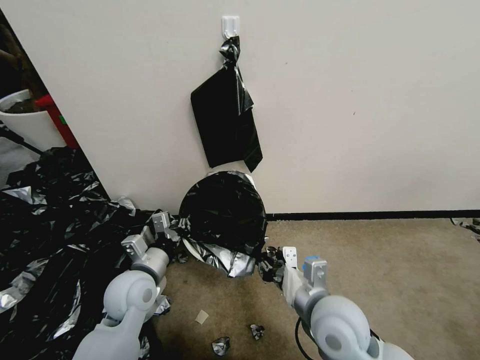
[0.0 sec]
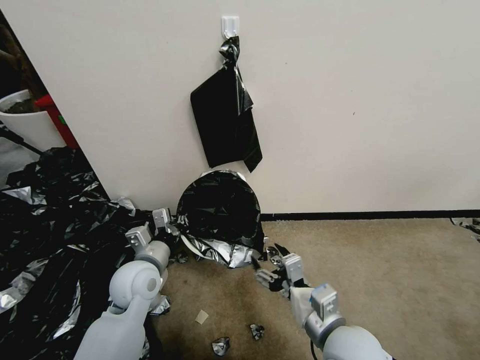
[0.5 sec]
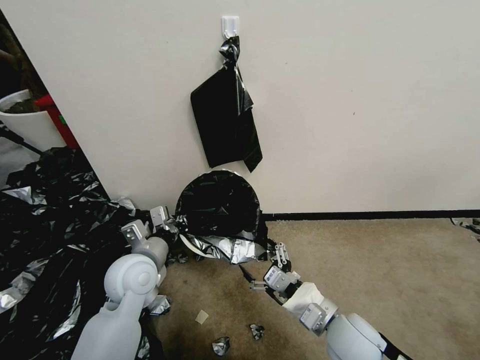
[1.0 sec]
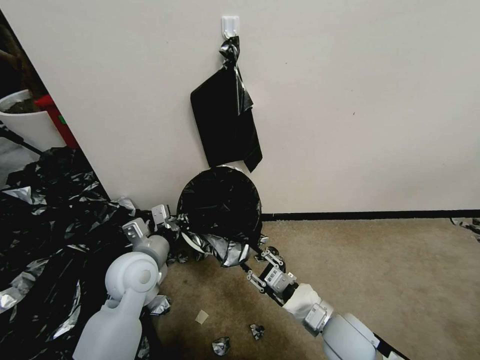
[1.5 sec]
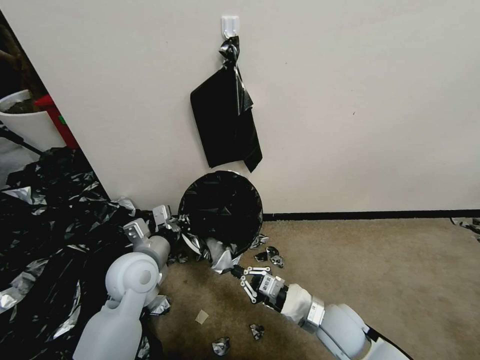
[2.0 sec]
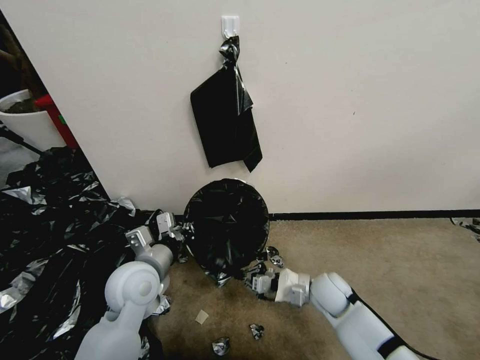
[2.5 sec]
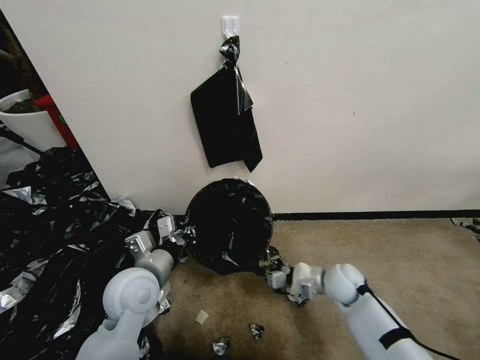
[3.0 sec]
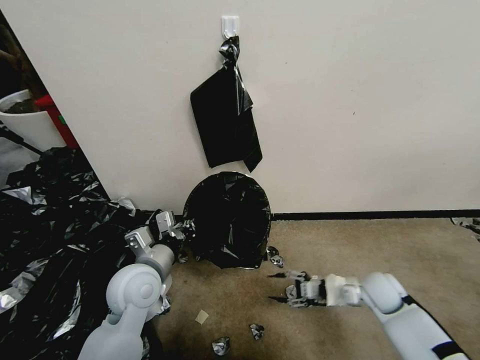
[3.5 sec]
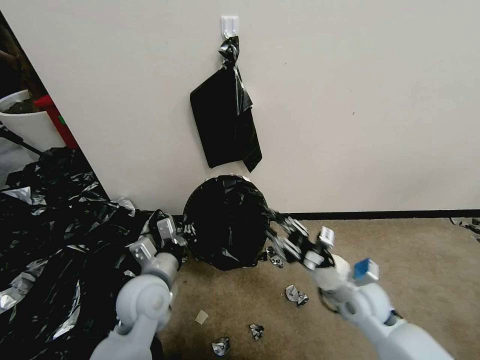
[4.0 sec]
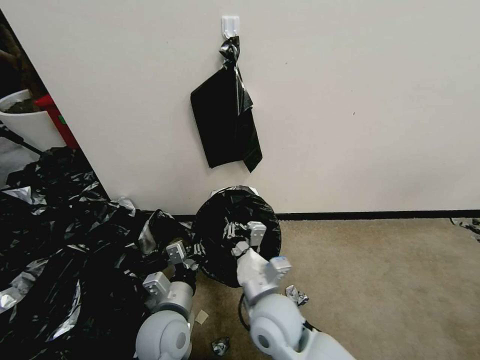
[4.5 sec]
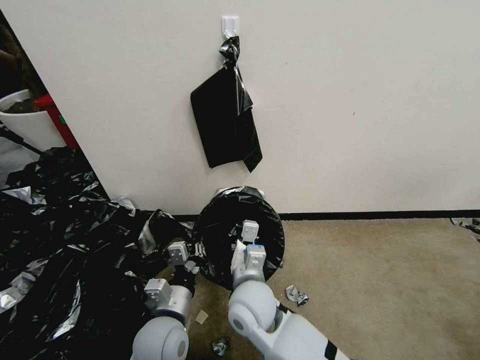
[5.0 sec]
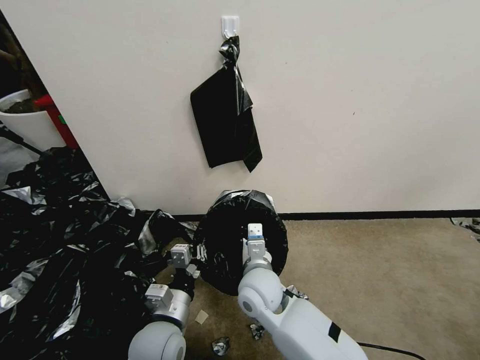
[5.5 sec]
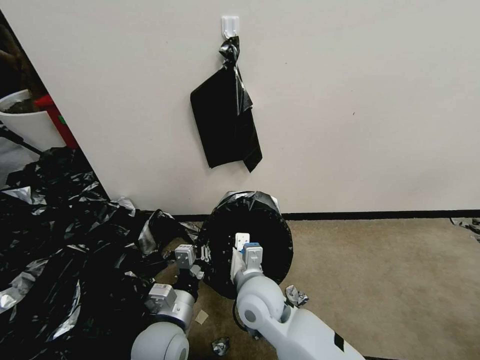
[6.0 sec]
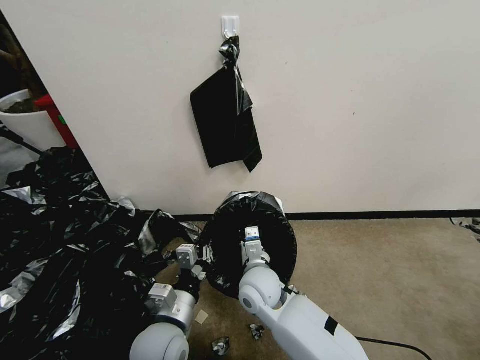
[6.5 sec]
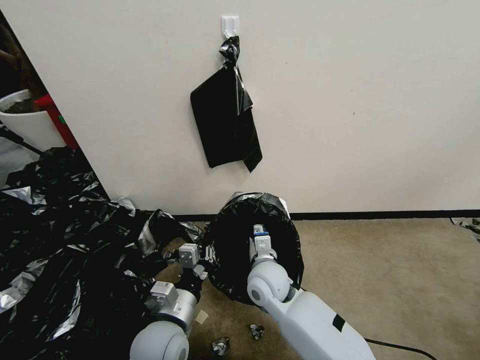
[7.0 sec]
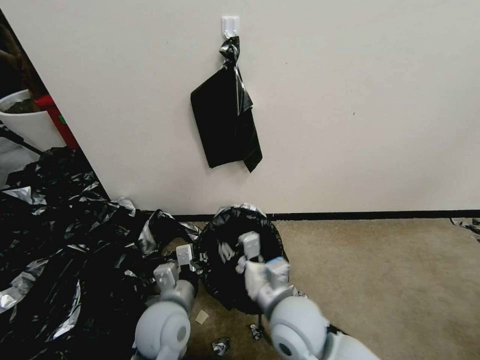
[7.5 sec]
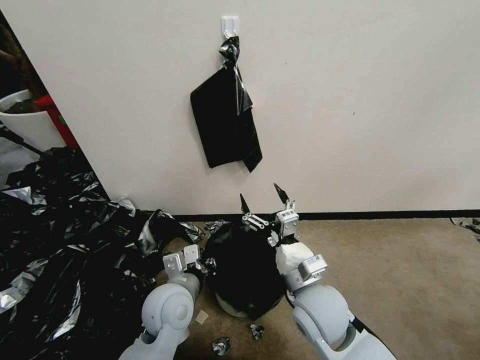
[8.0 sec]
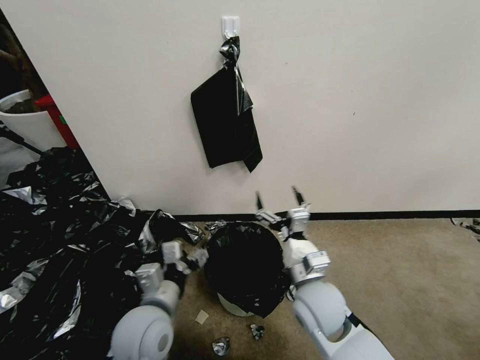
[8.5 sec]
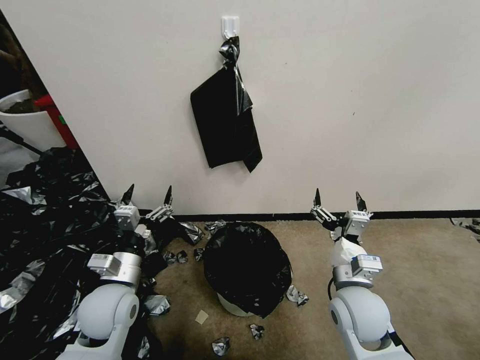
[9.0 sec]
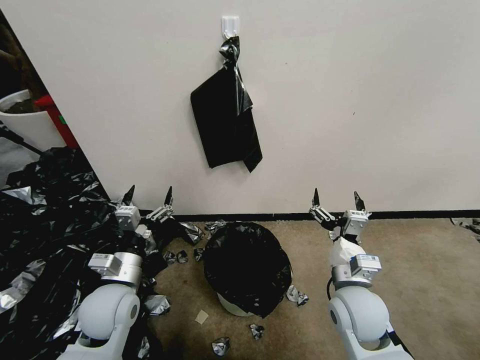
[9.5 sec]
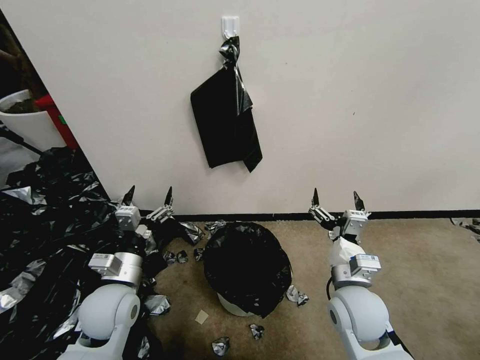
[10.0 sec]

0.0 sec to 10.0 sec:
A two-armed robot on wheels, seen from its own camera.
Task of the whole recording: Place a trash bag onto the trash bin.
0.0 sec to 2.0 sec: The right gripper is displaced downward by approximately 10 cm, and opens and closes again.
2.0 sec to 4.0 sec: The right gripper travels to the right by some 5 cm, and opens its fingers.
4.0 sec to 6.0 sec: The right gripper moves to the left, about 25 cm, and closes; the left gripper is displaced backward and downward by about 10 cm.
6.0 sec to 8.0 sec: The right gripper moves to the right, approximately 10 cm, and opens its fingers; the left gripper is displaced forward by about 5 cm.
8.0 sec to 10.0 sec: The left gripper heads to the left, covering approximately 10 cm, and opens its fingers; the right gripper shifts approximately 10 cm to the right.
